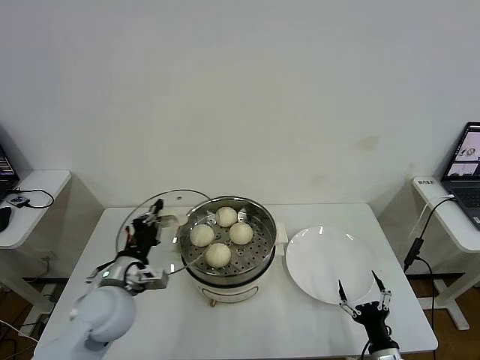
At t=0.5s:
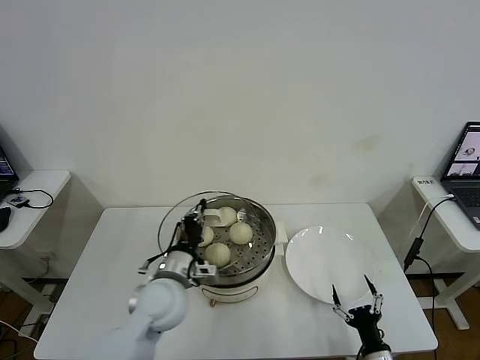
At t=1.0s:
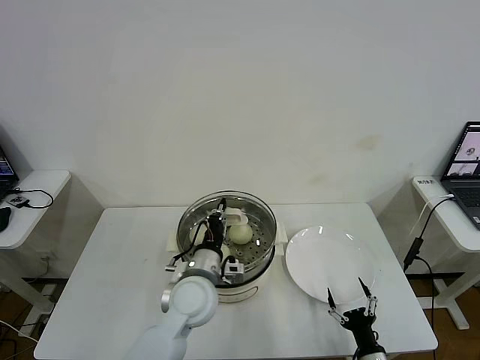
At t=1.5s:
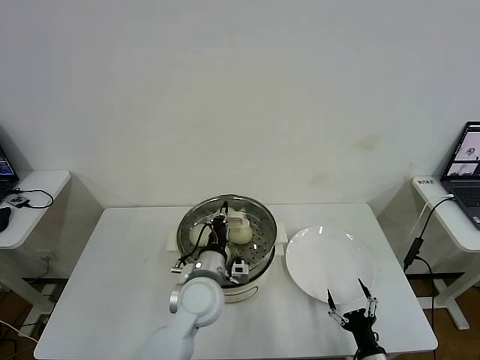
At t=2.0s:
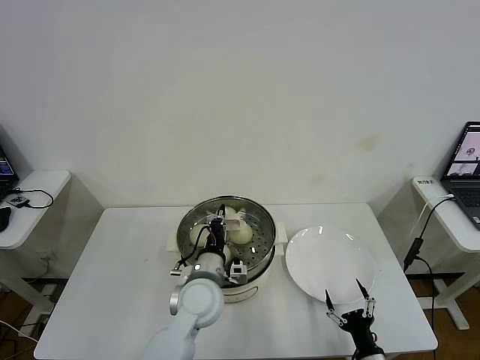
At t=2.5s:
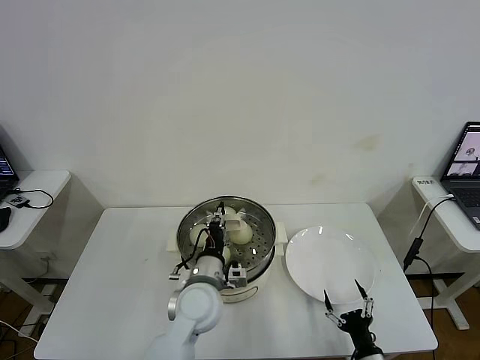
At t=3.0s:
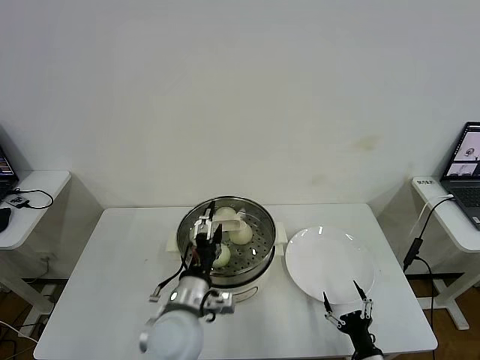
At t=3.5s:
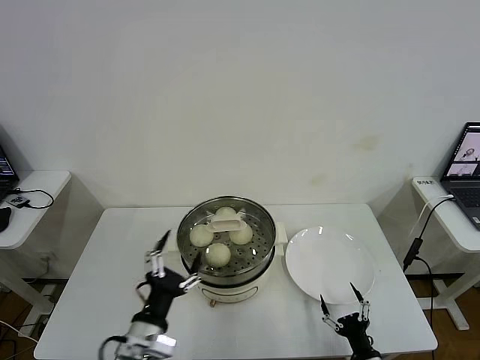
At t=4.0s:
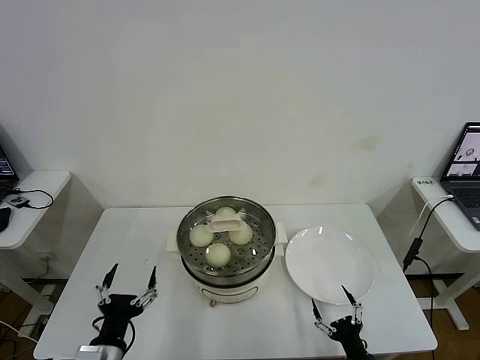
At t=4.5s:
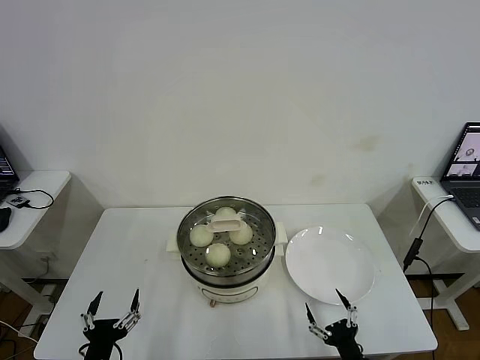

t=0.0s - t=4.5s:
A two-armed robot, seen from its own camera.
Step, t=0.0s - t=2.5s: Place the pot lid on the steamer with left gripper.
t=0.0s - t=2.0s: The left gripper shifts some 15 cm to the right.
t=2.0s - t=4.5s: The left gripper heads backward and to the left, covering some 30 cm, and opens; the right gripper changes place by about 5 cm.

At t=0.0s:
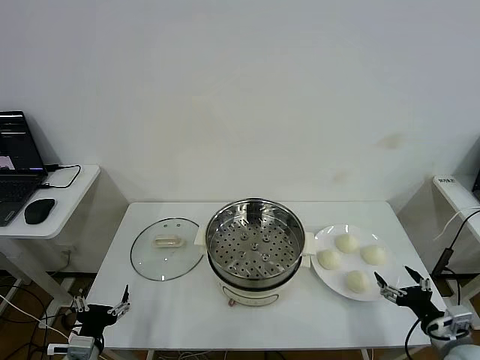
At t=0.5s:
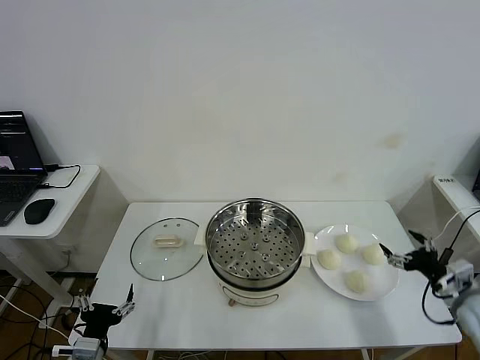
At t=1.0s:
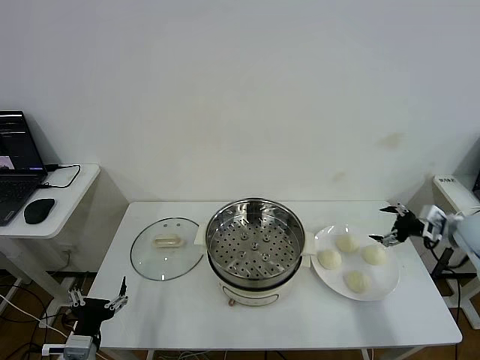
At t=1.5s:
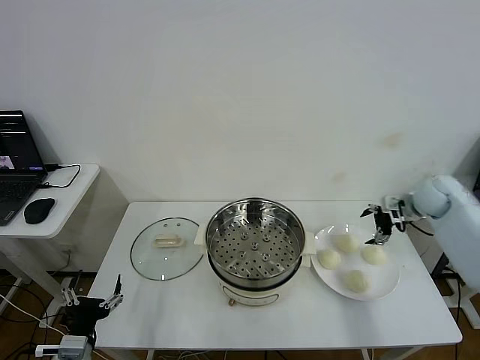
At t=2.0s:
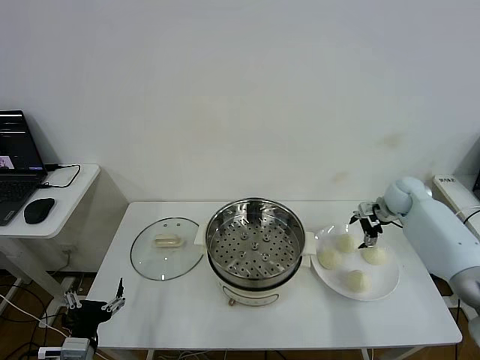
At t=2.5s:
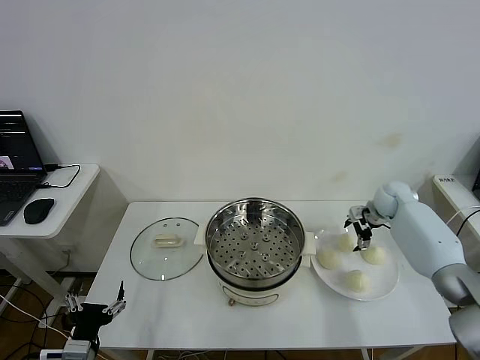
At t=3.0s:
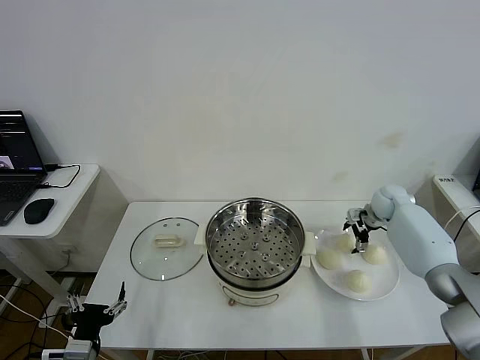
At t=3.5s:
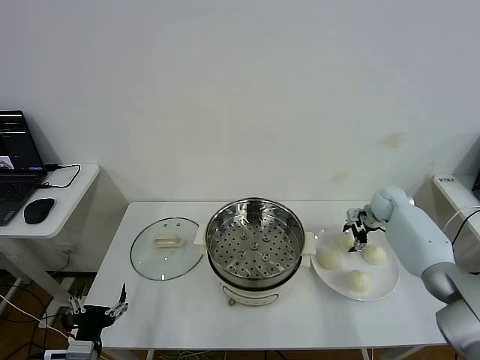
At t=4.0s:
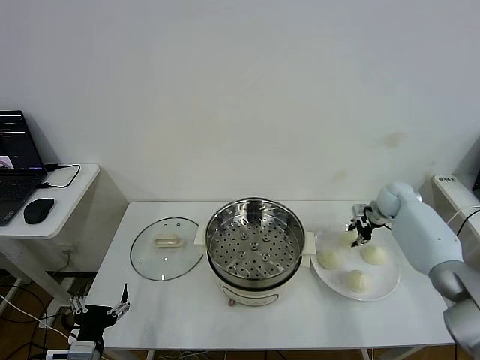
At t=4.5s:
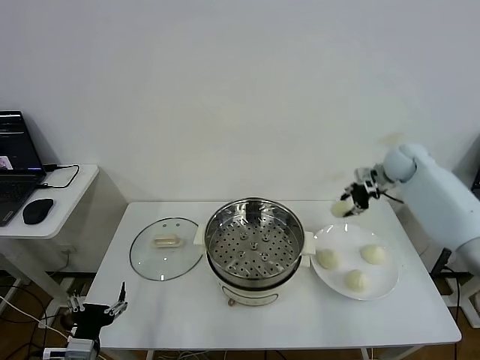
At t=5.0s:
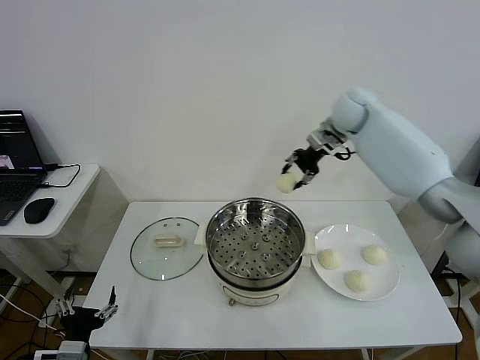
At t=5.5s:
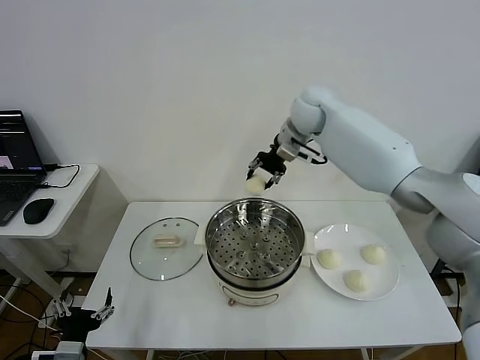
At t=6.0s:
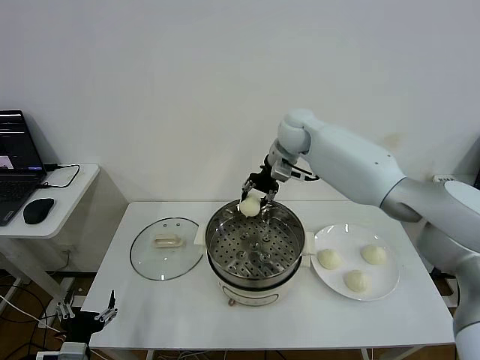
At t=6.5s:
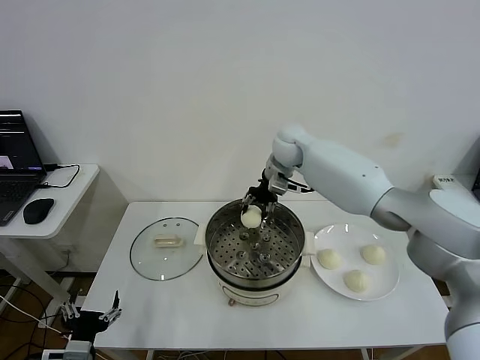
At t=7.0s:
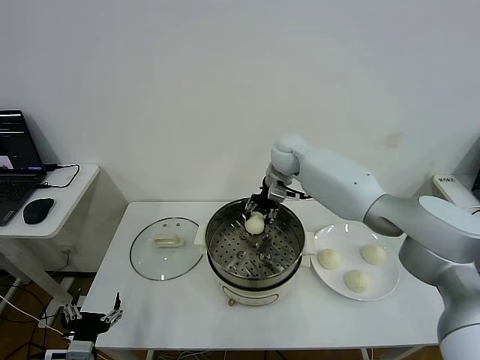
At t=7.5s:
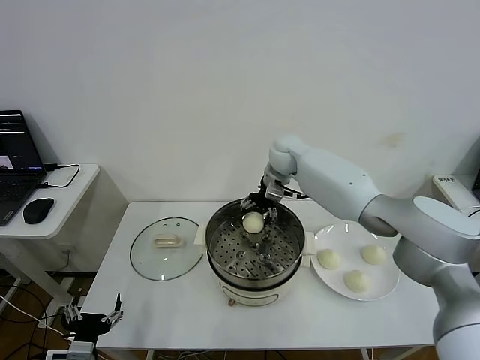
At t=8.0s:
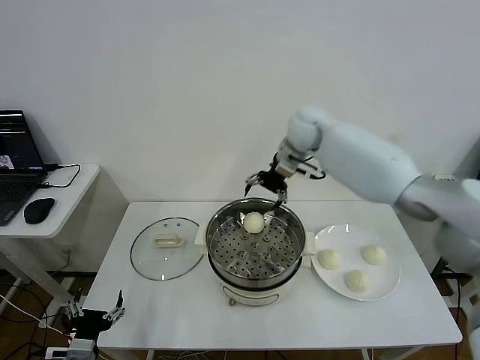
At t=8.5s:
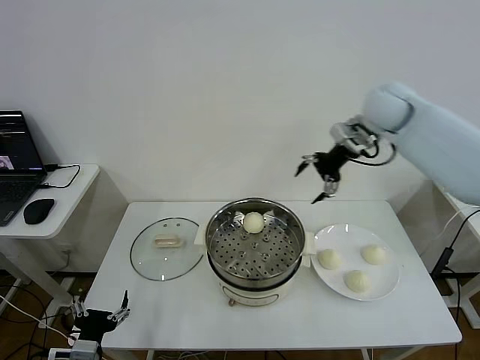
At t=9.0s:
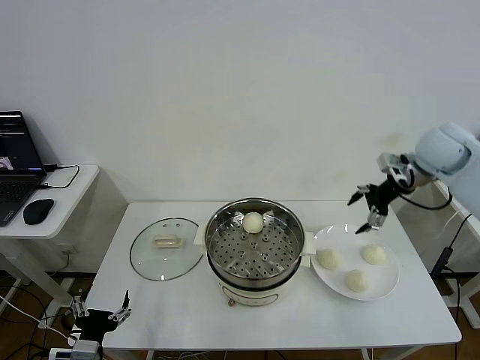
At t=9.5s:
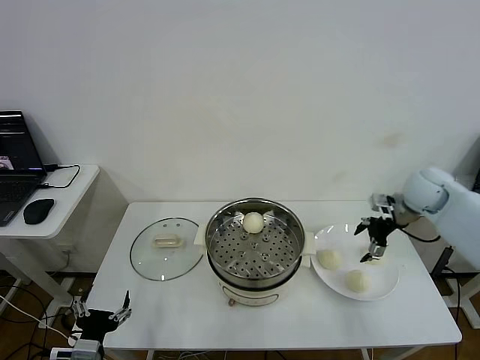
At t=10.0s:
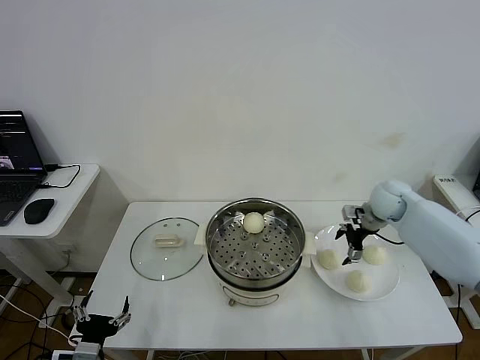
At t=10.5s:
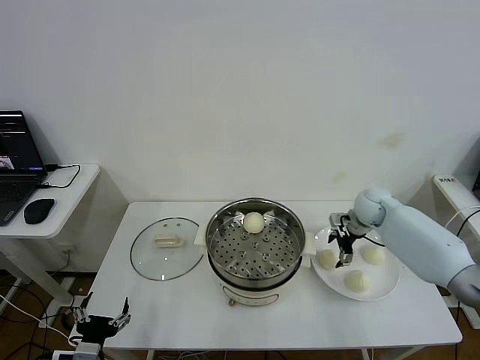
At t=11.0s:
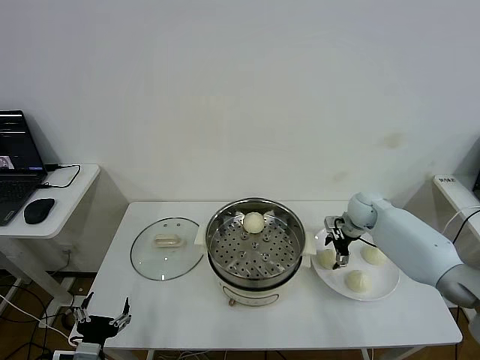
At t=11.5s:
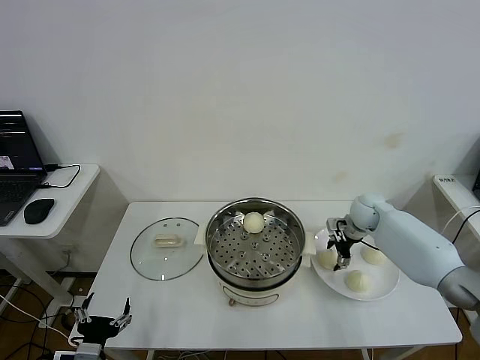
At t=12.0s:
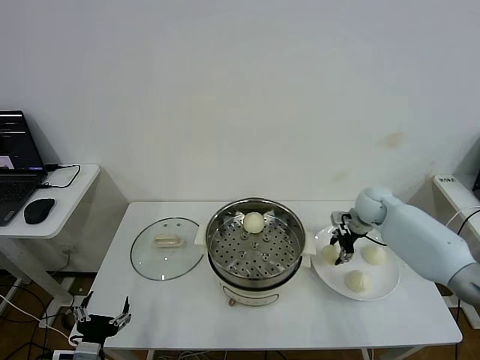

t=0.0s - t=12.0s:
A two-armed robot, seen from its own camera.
Step, t=0.0s - t=3.5s: Grasp the baozi in the plate with right gripper.
Step, t=4.0s - t=7.0s: Place the baozi on the steamer with right gripper.
Step, t=7.5s - t=11.5s: Grasp the baozi in the plate with right gripper.
t=2.0s - t=4.0s: The right gripper closes up.
t=4.0s - t=6.0s: The right gripper goes roughly 35 cm to the left and upward.
t=6.0s - t=8.0s: The right gripper travels to the right and upward by roughly 10 cm, and opens its fingers.
t=8.0s - t=10.0s: The right gripper moves downward and to the right, approximately 25 cm.
t=10.0s - t=12.0s: The right gripper closes its fingers.

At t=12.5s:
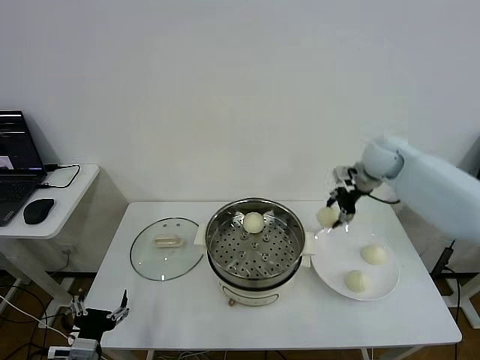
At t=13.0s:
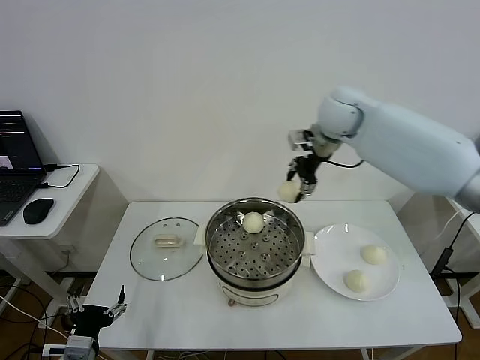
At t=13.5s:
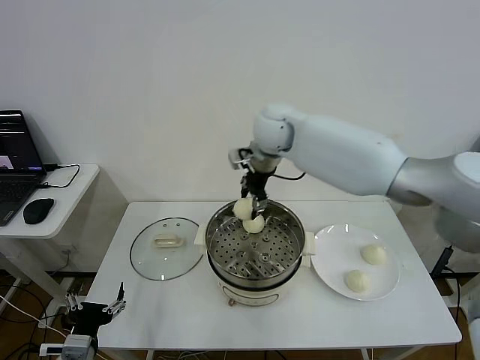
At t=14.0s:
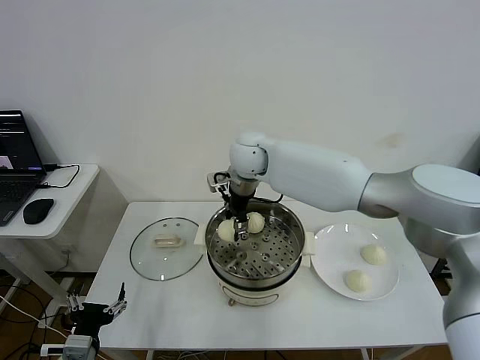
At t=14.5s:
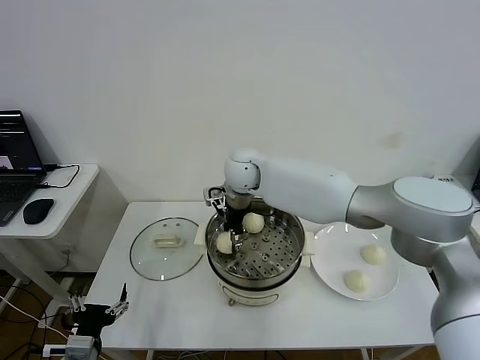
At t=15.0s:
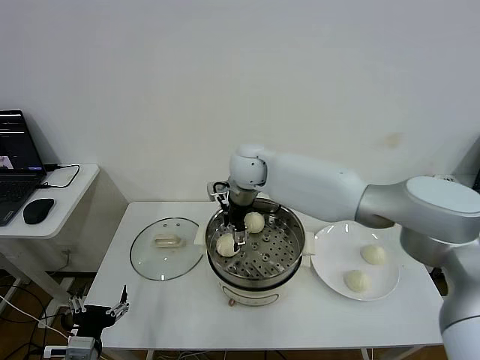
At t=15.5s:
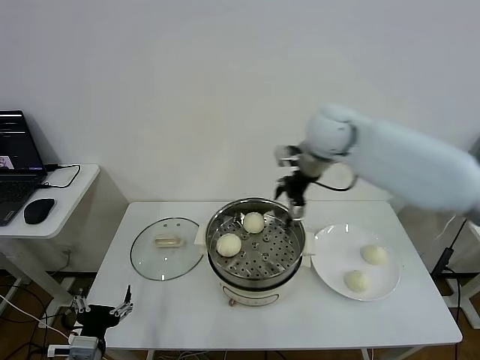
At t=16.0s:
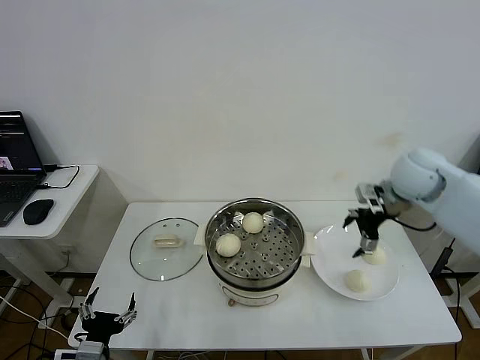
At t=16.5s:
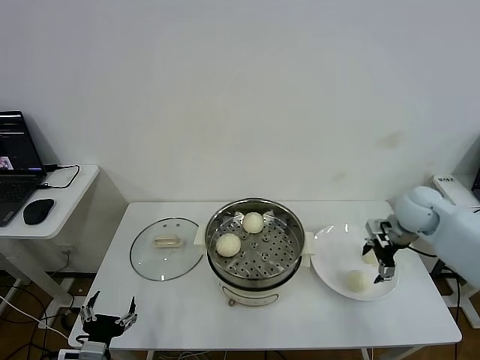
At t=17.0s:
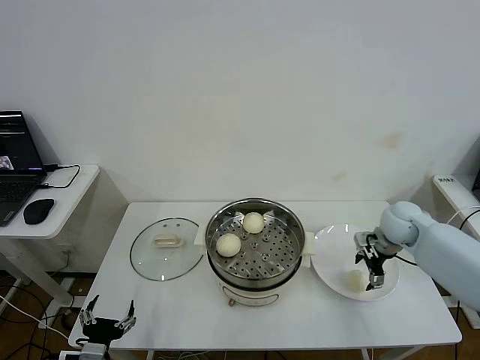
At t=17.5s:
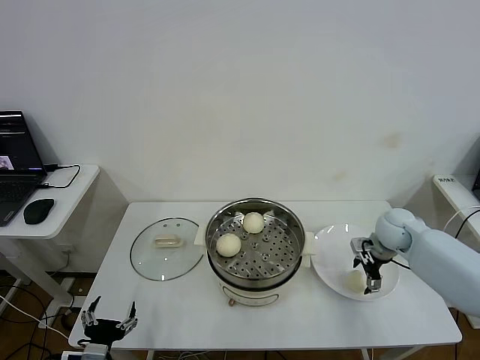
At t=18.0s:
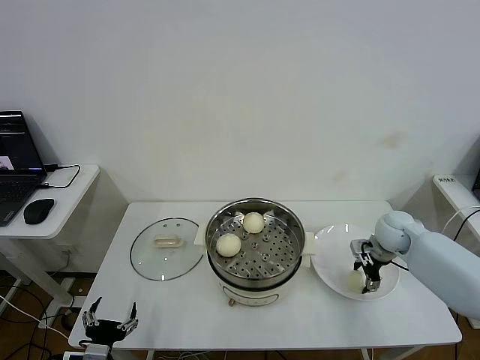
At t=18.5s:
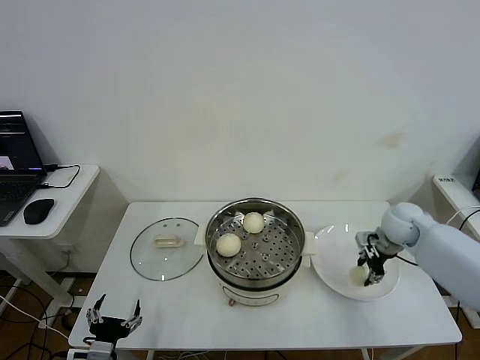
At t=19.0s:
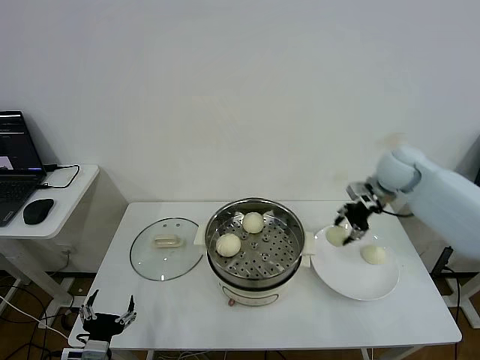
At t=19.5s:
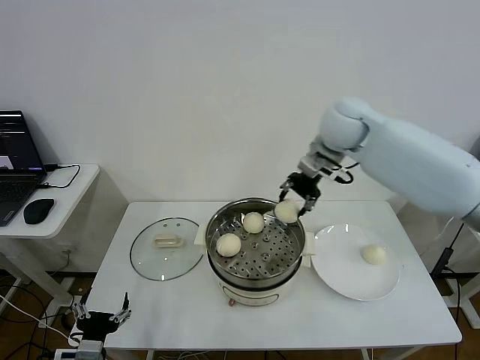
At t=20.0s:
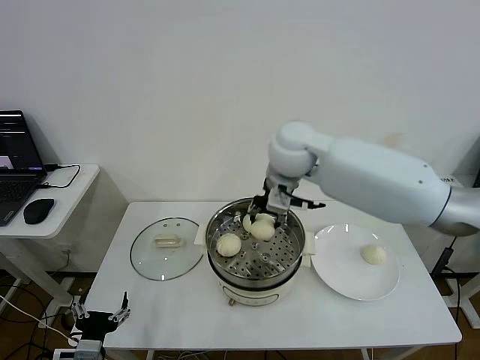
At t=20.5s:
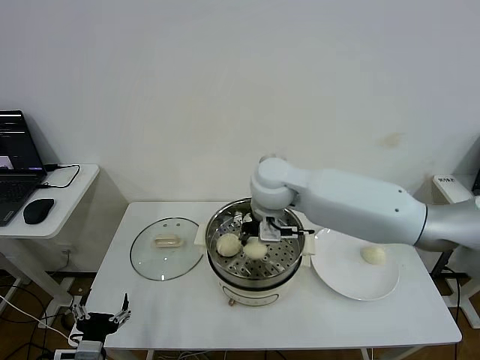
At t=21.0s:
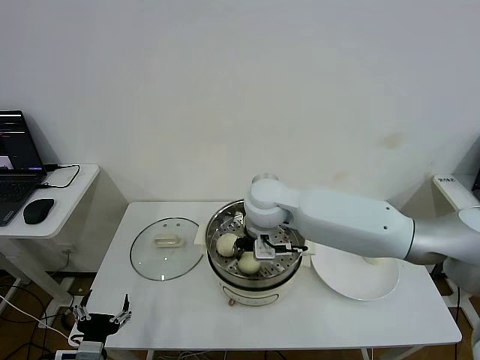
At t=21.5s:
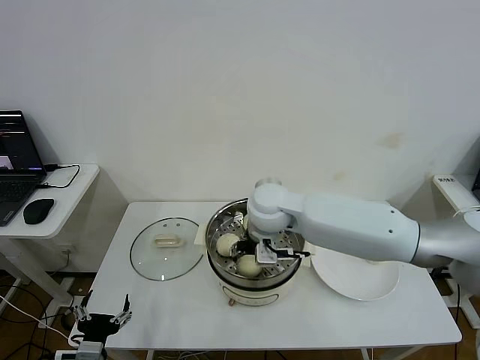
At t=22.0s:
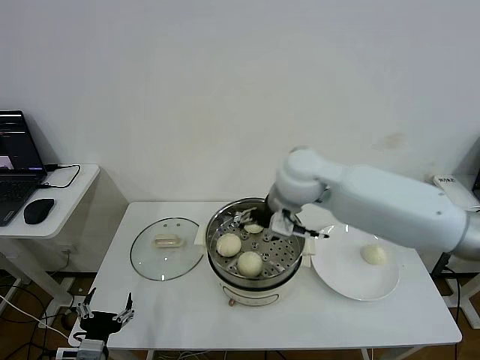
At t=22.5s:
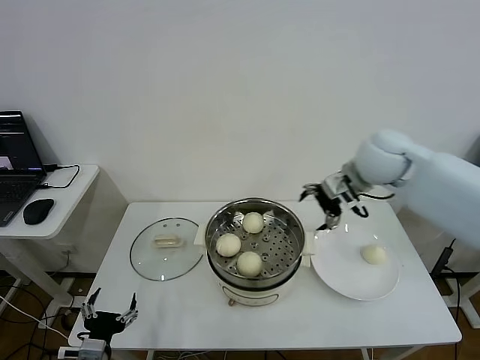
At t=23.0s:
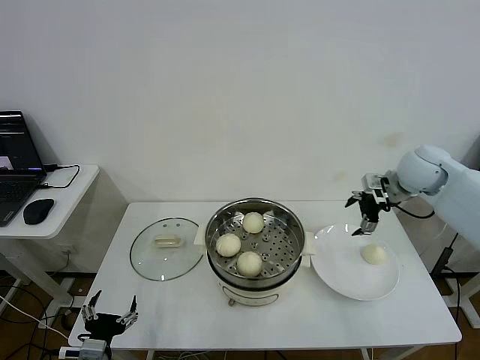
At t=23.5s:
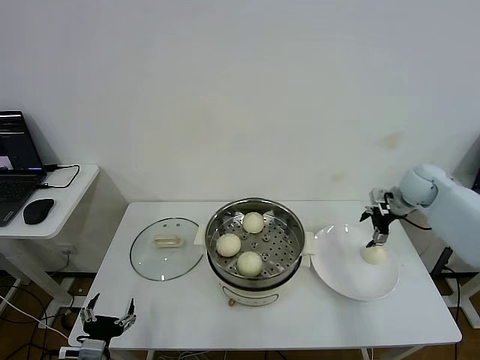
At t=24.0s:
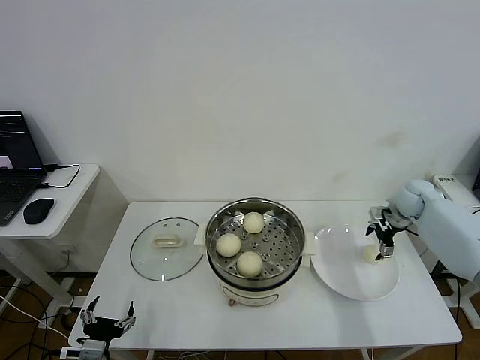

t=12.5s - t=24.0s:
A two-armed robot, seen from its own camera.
Step, t=12.5s - t=14.5s: Place the baozi on the steamer with right gripper.
Step, t=15.0s - t=18.0s: Grasp the baozi in the plate with right gripper.
Step, t=18.5s - t=21.5s: Place the baozi on the steamer with right gripper.
t=12.5s - t=14.5s: The right gripper moves to the left, about 30 cm.
t=14.5s - t=16.5s: The right gripper is displaced to the right by approximately 40 cm, and opens.
t=16.5s - t=18.5s: The right gripper closes its fingers.
t=18.5s - t=20.0s: The right gripper travels to the left and upward by about 35 cm.
t=20.0s - t=22.0s: The right gripper moves approximately 10 cm downward and comes back, and opens.
t=22.0s - t=24.0s: The right gripper is displaced to the right and downward by about 40 cm.
